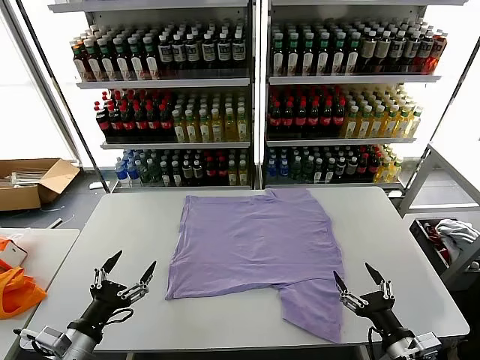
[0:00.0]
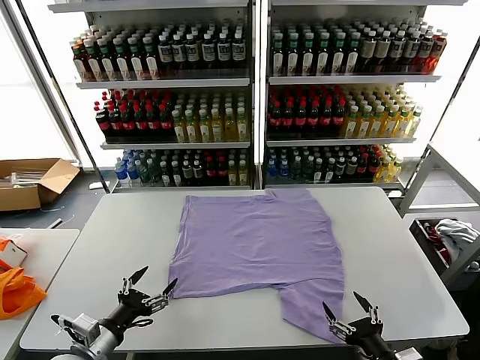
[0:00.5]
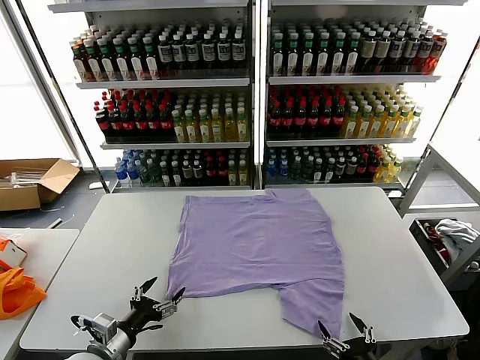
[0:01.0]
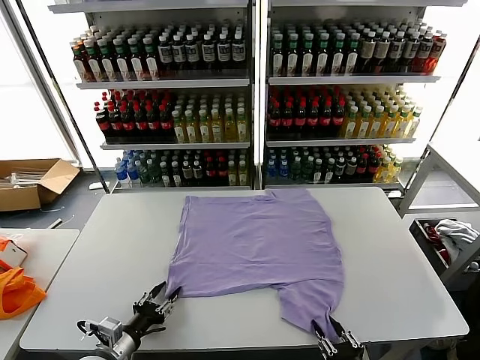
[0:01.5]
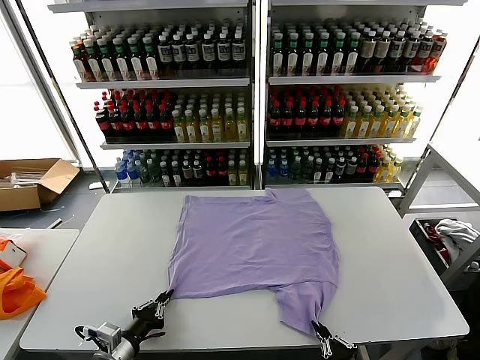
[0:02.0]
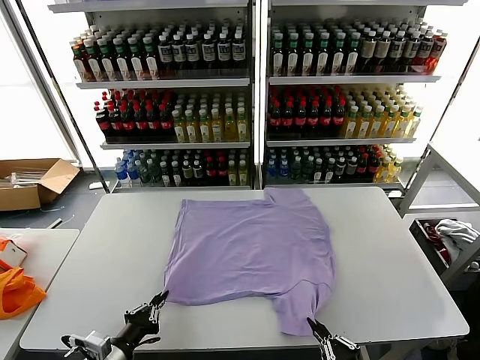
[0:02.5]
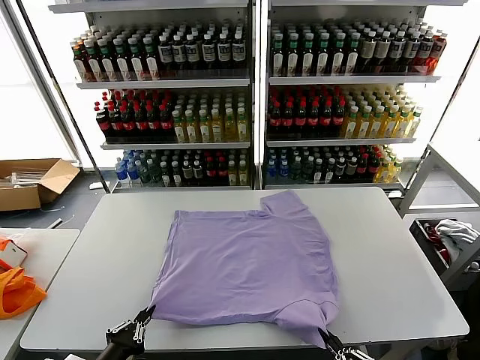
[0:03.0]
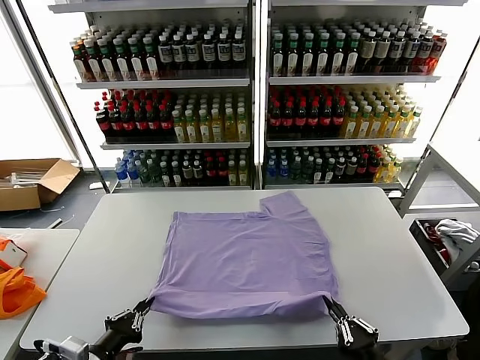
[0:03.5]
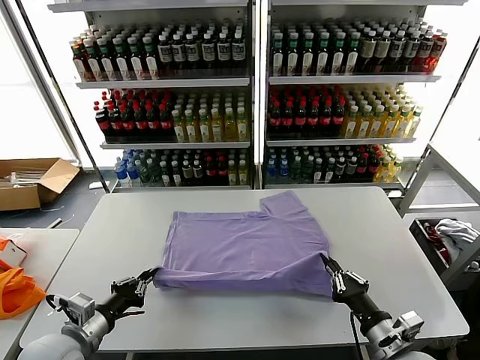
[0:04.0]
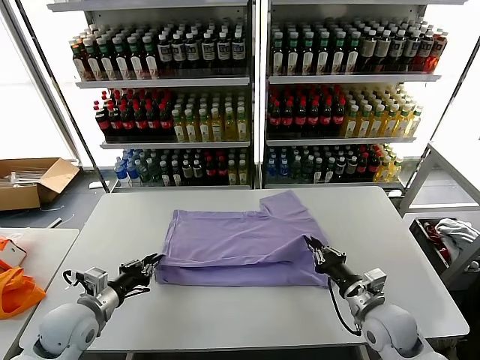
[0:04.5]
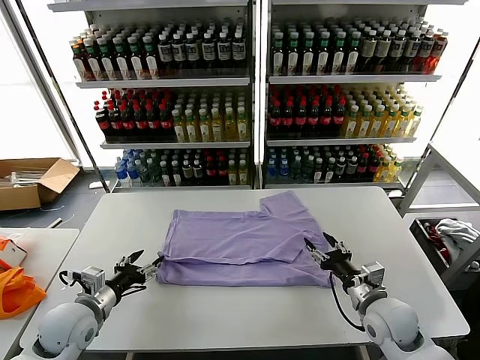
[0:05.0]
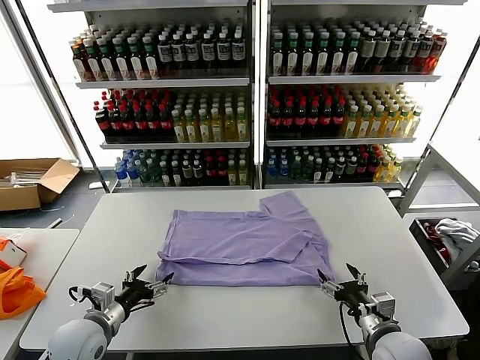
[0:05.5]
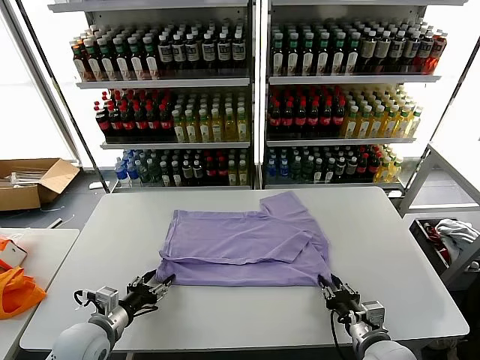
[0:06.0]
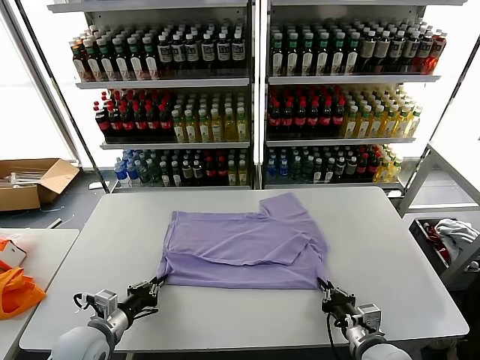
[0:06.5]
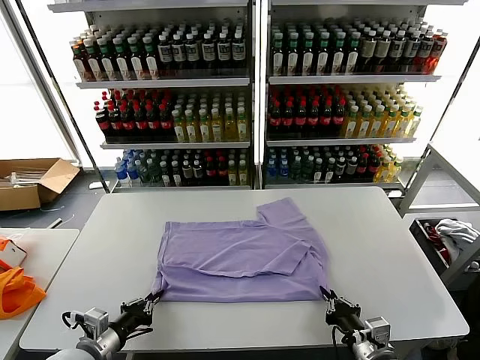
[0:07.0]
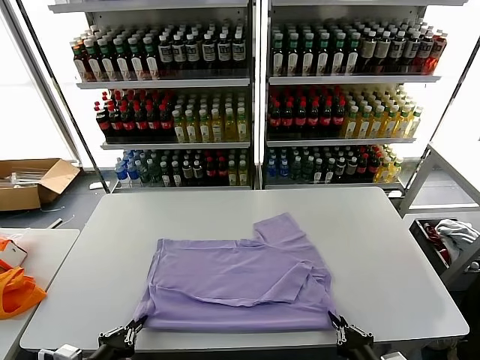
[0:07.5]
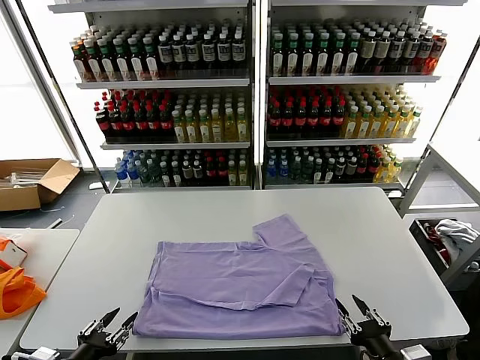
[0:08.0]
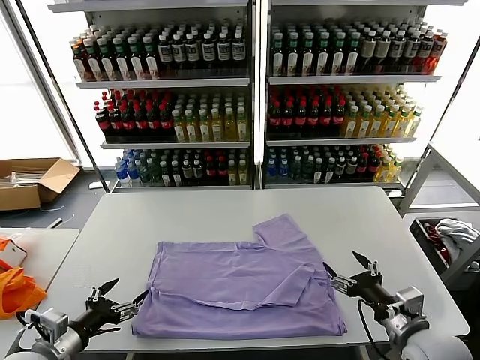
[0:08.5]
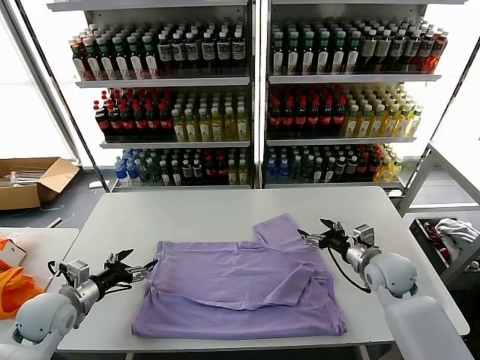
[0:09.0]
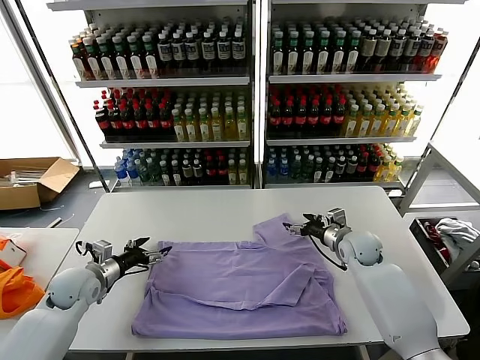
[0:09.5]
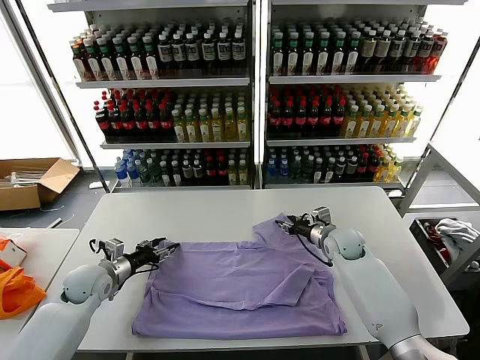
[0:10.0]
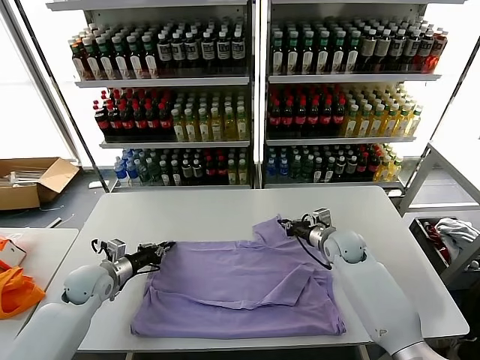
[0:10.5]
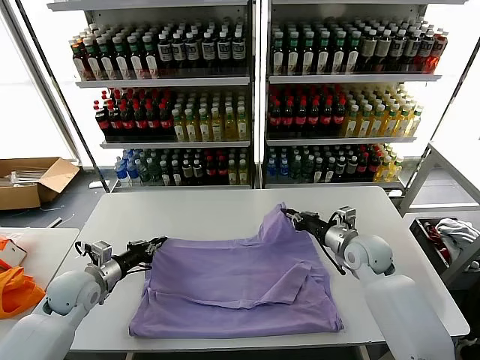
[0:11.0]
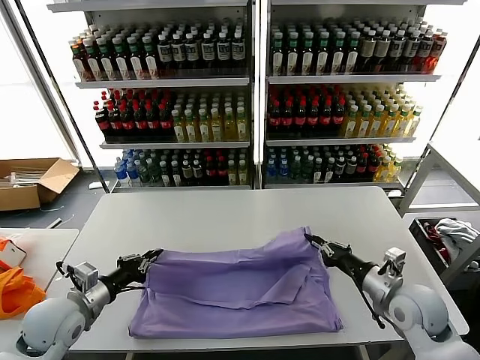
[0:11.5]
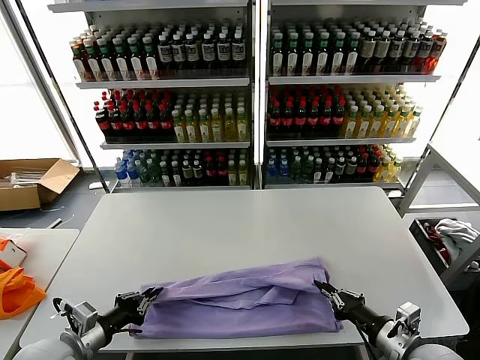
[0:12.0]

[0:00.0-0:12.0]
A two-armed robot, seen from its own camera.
Task of the whole recording: fold and organize the clothes.
Step, 0.0 to 2.0 s: use both grippers simultaneously to clamp the lower edge of the clothing fabric.
Step, 2.5 to 4.5 s: use both grippers to drag the lower edge of the fabric forward and fold it over the upper edge.
Step, 5.0 to 7.5 s: Drag the clothes downward with both gripper.
Step, 8.0 to 10.5 s: use both grippers simultaneously to clamp the upper edge of the clothing fabric.
2.0 to 4.0 s: The left gripper moves upward, approximately 10 cm, and travels backward and back again, some 10 cm each way; the right gripper heads forward, covering roughly 15 cm.
4.0 to 6.0 s: The left gripper travels downward by about 5 cm, and opens up, while the right gripper moves some 10 cm forward and comes back, and opens, then closes once more.
6.0 to 8.0 s: The grippers both shift backward and upward by about 15 cm. The right gripper opens. Meanwhile the left gripper closes, then reopens.
8.0 to 10.0 s: Both grippers move forward, roughly 30 cm. The right gripper opens, then closes once more.
10.0 to 12.0 s: The left gripper shifts roughly 20 cm backward, and closes, while the right gripper heads backward, covering about 30 cm, and closes up.

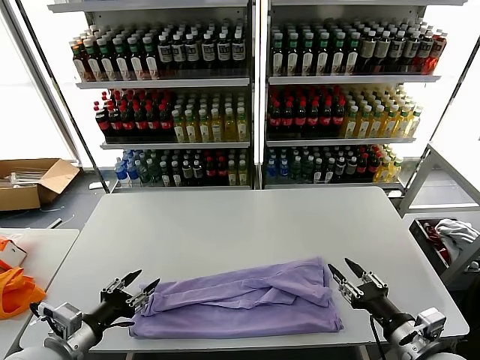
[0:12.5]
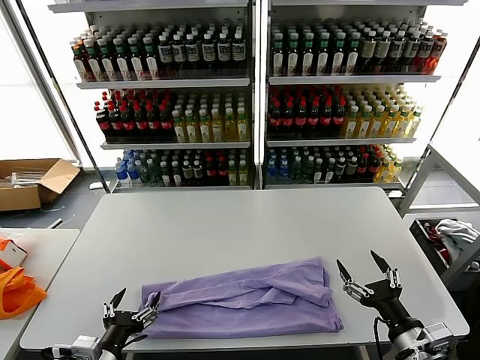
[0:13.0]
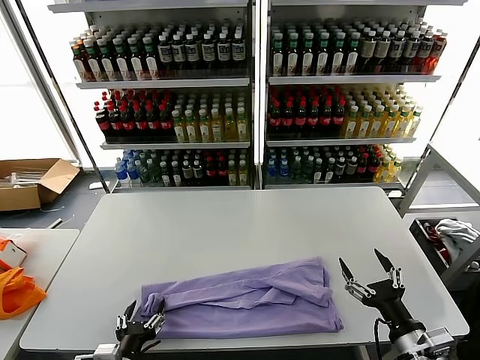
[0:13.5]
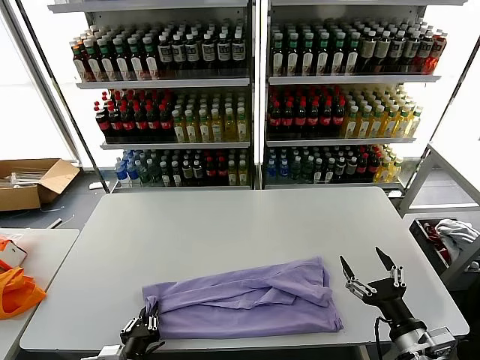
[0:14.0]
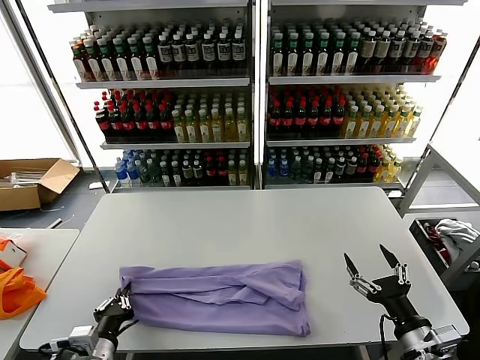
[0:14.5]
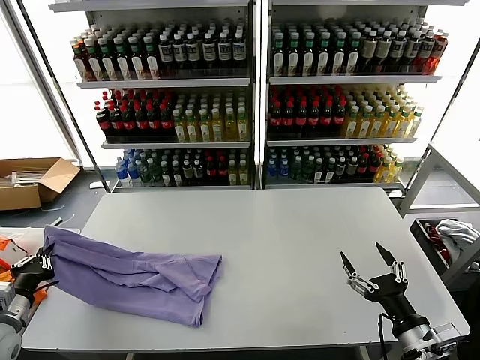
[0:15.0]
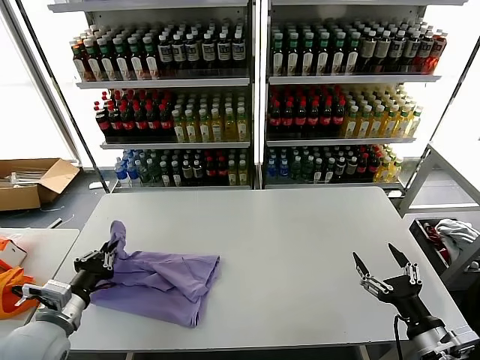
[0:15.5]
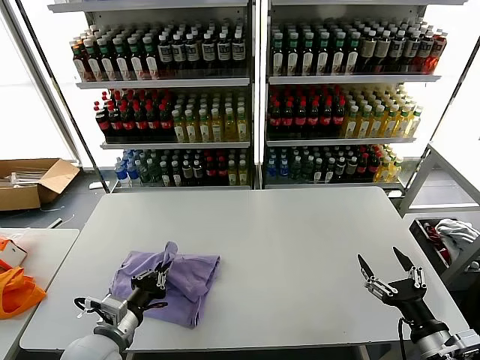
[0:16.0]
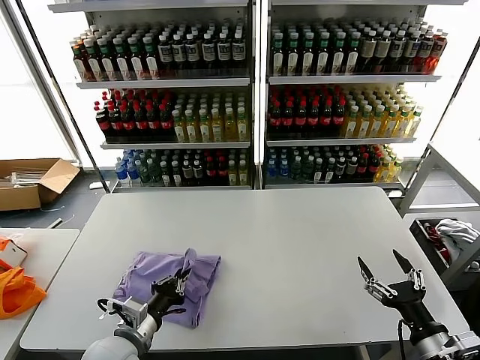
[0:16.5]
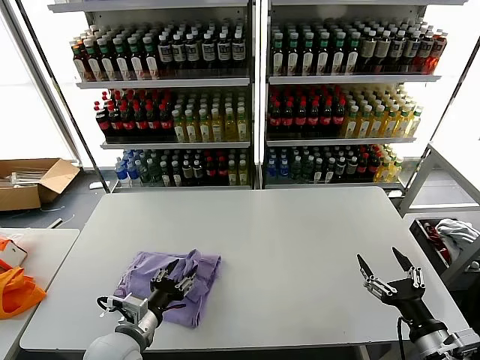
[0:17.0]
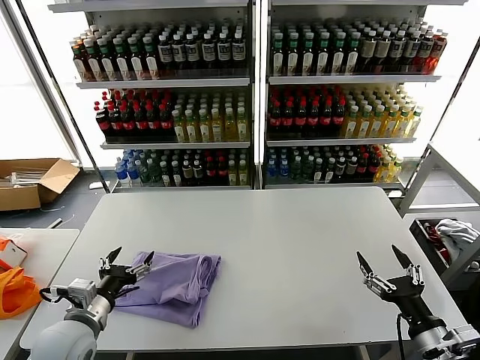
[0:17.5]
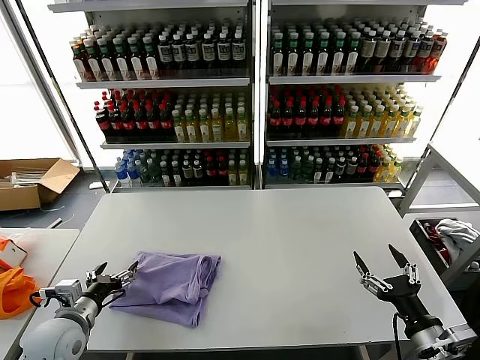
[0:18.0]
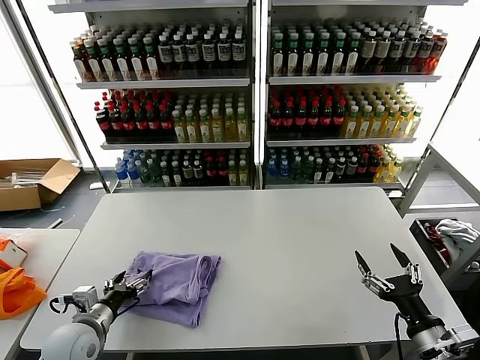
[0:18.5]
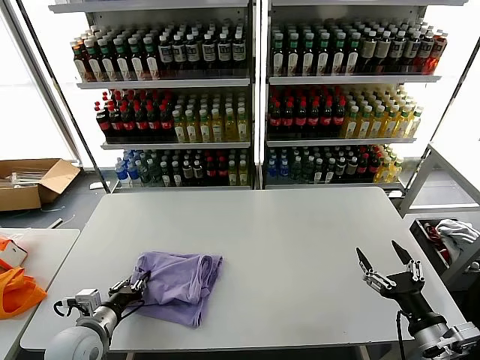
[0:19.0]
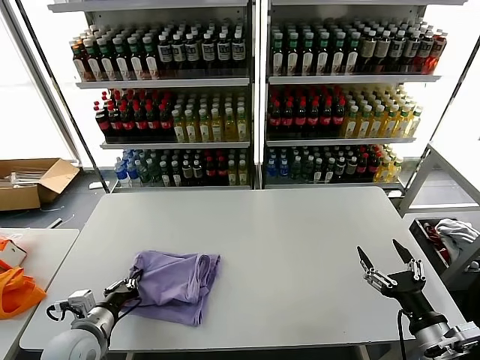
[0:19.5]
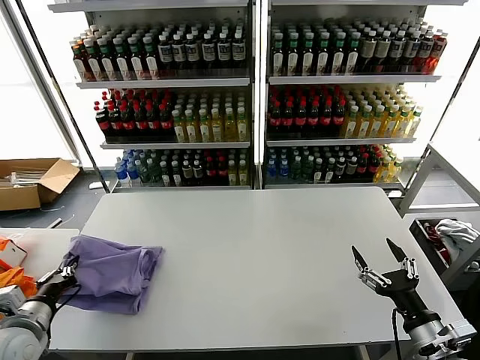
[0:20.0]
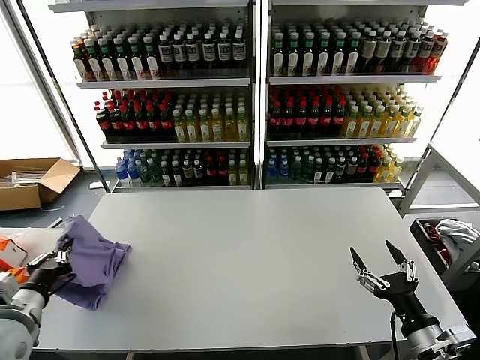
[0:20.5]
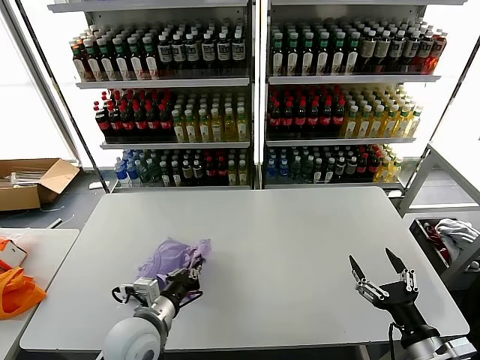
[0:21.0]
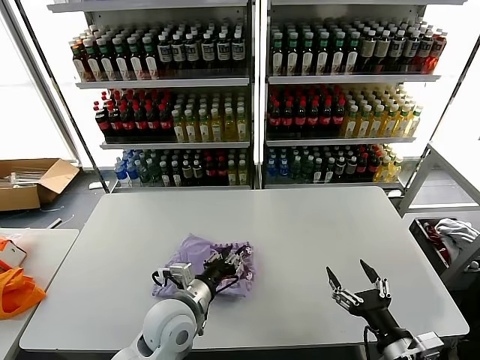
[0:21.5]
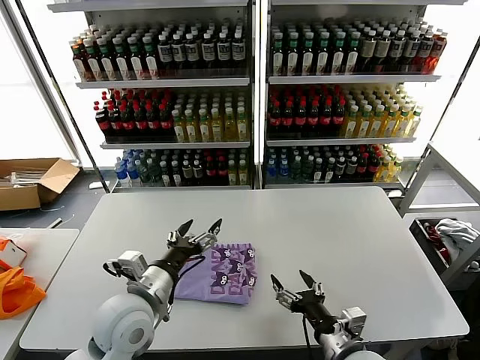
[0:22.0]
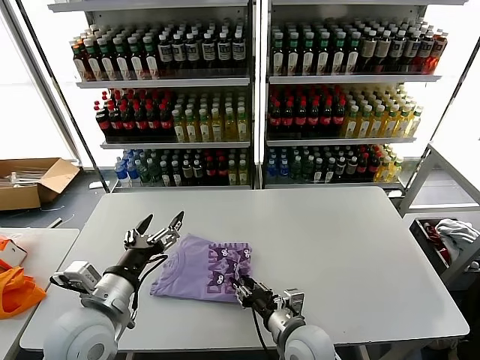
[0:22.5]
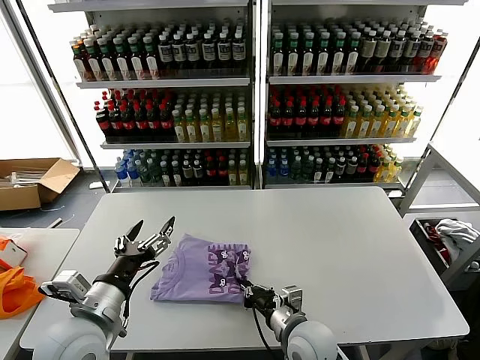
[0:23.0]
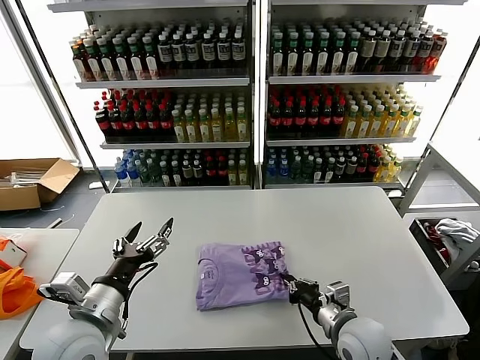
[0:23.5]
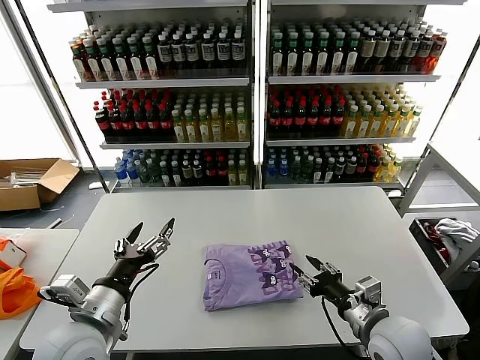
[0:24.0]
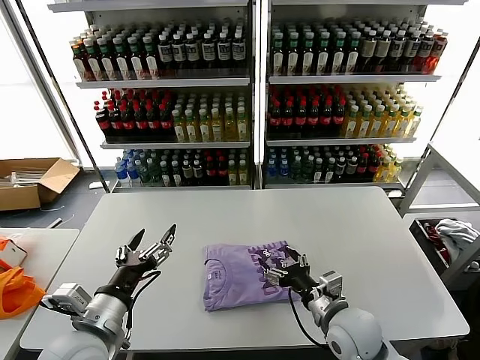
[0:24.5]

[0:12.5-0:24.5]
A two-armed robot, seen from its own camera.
Task of the whole recording: fold and organize the clothes.
Step, 12.5 to 14.0 s: use the left gripper to clamp the left edge of the fabric.
Step, 14.5 to 17.0 s: use the left gripper to drag the left edge of the fabric to the left and folds it over the right edge.
Step, 17.5 to 21.5 s: Flip the folded clothes over with left gripper.
12.5 to 14.5 s: The left gripper heads downward and to the right, covering approximately 10 cm, and closes its fingers. The right gripper opens.
14.5 to 16.5 s: The left gripper heads forward, covering some 5 cm, and travels to the left and back again, roughly 20 cm each way.
16.5 to 18.5 s: The left gripper heads to the left, covering roughly 10 cm, and opens.
18.5 to 20.5 s: The left gripper moves upward and to the left, approximately 15 cm, and closes its fingers.
20.5 to 22.5 s: The right gripper goes roughly 25 cm to the left and forward, and closes up, while the left gripper travels to the right by about 15 cm, and opens.
22.5 to 24.5 s: The right gripper heads to the right and upward, covering about 10 cm, and opens up.

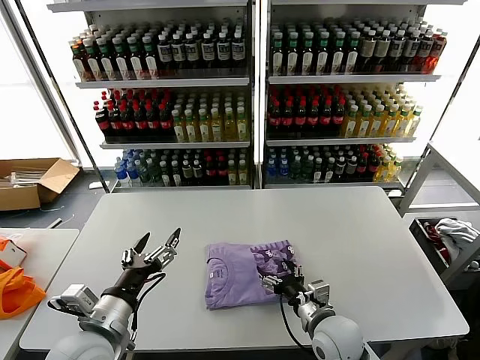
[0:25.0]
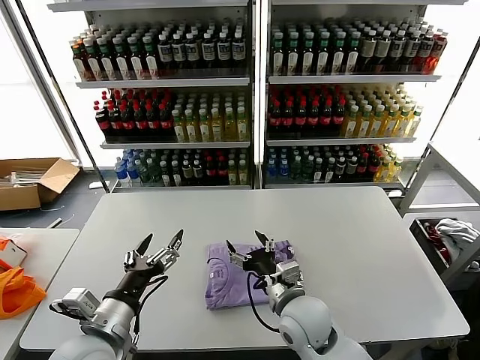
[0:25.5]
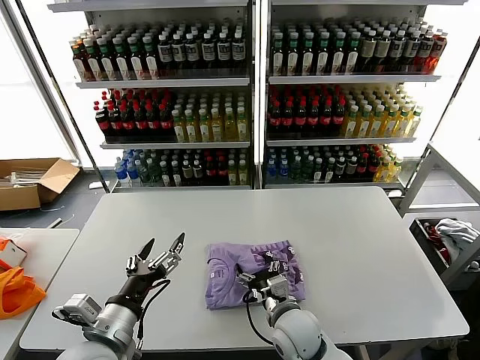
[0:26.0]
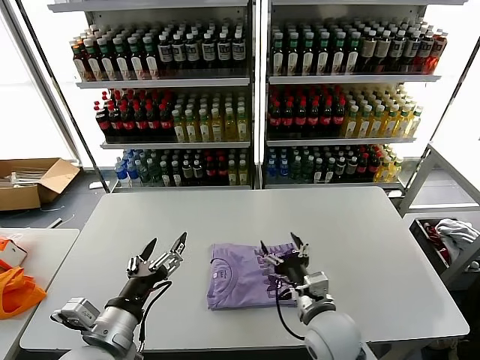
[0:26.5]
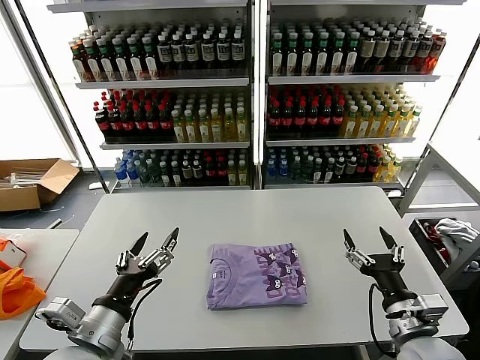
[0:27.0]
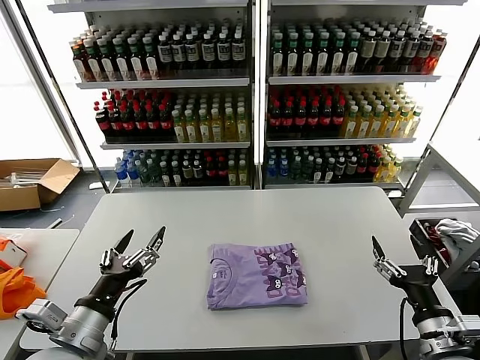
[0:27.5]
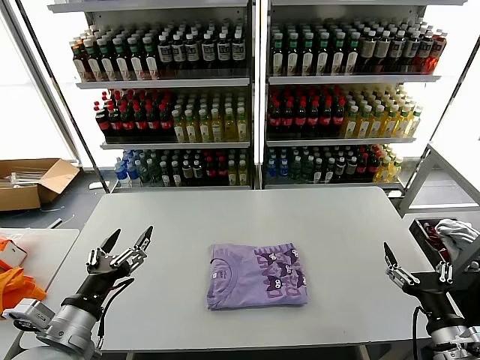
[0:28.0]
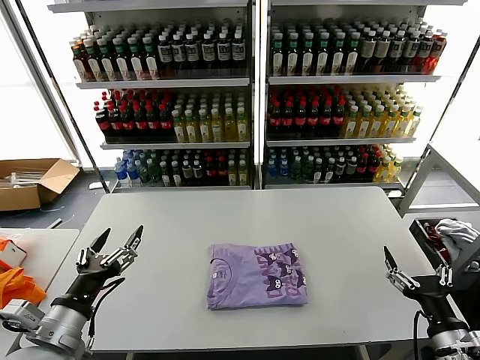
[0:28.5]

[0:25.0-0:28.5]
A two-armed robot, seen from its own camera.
Task of the whole recording: fold and organize the clothes.
25.0 to 27.0 s: The right gripper is displaced to the right, upward and backward by about 15 cm.
27.0 to 28.5 s: The right gripper is displaced to the right and backward by approximately 10 cm. The left gripper heads to the left, covering roughly 5 cm.
